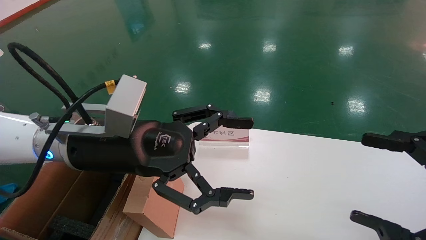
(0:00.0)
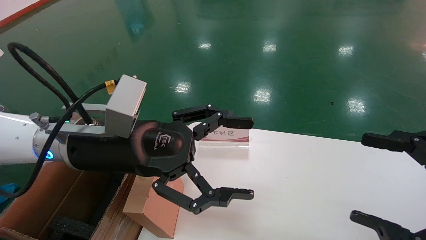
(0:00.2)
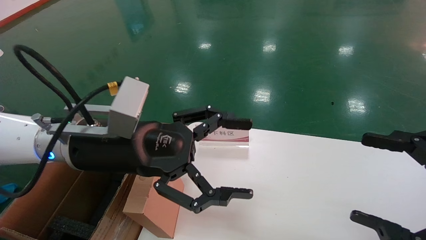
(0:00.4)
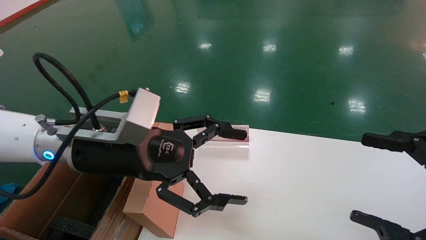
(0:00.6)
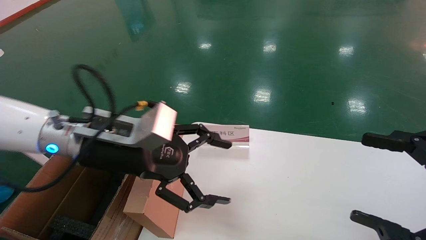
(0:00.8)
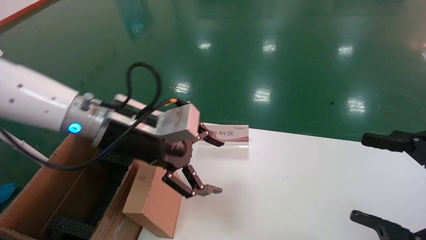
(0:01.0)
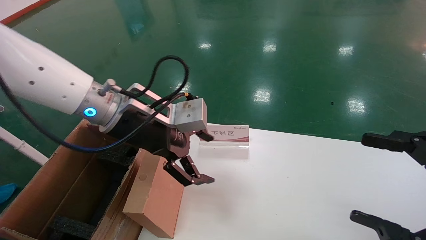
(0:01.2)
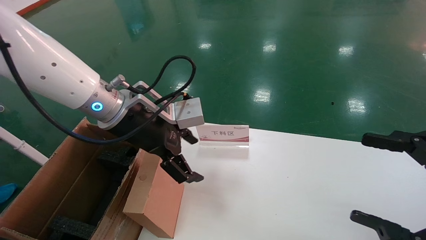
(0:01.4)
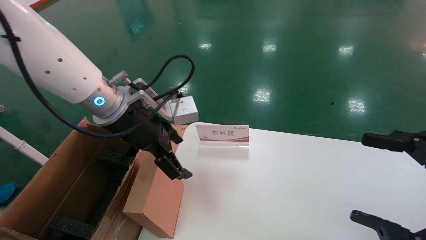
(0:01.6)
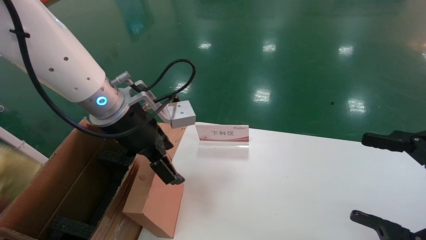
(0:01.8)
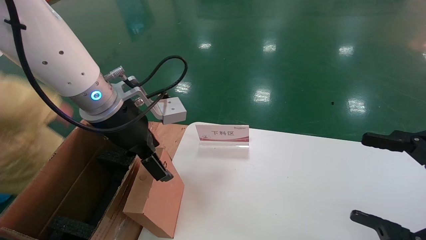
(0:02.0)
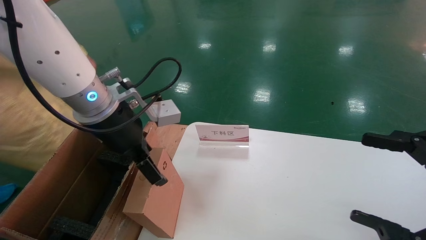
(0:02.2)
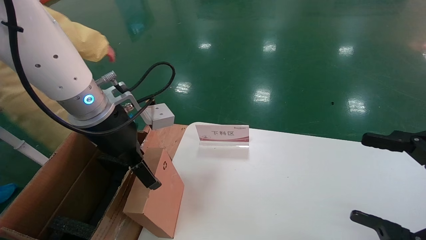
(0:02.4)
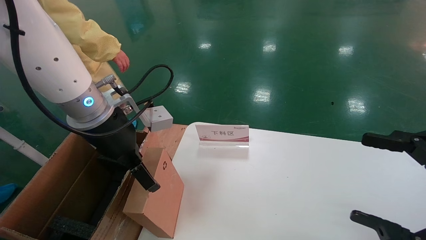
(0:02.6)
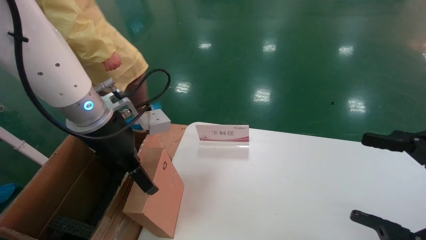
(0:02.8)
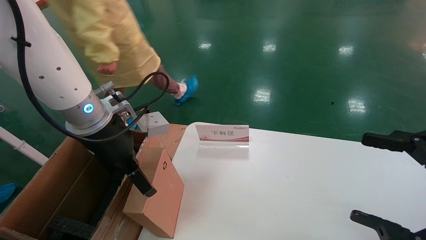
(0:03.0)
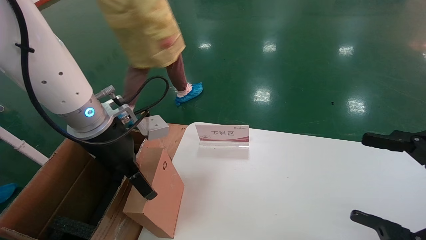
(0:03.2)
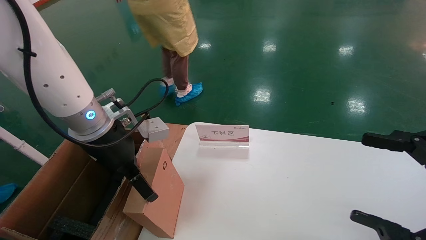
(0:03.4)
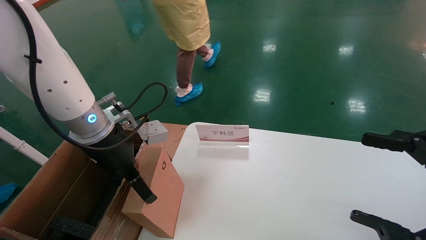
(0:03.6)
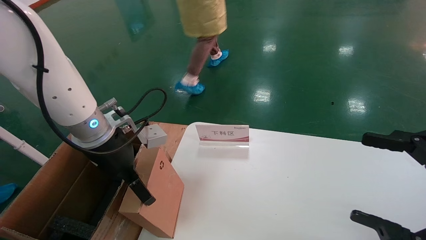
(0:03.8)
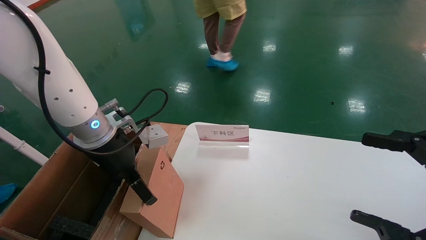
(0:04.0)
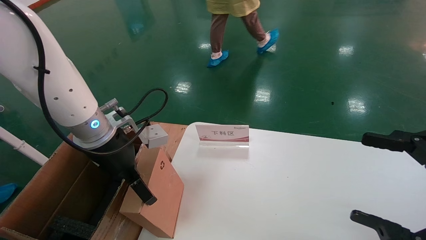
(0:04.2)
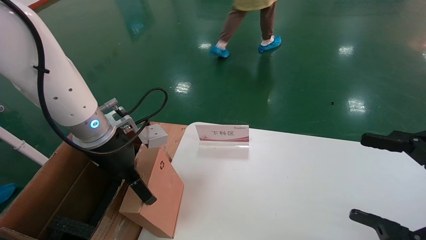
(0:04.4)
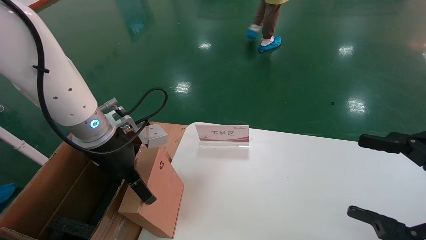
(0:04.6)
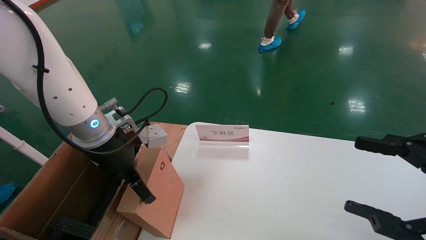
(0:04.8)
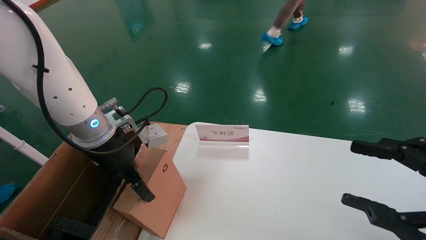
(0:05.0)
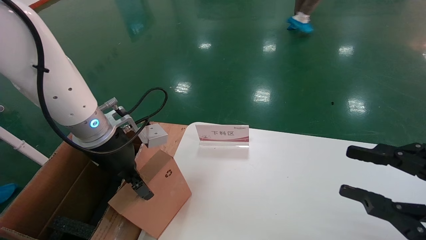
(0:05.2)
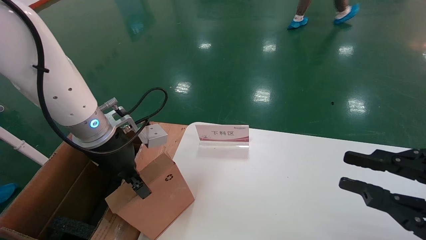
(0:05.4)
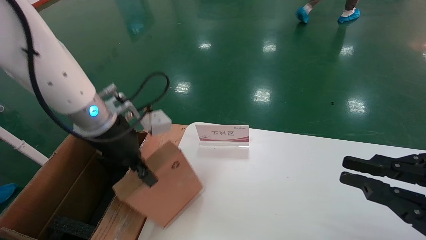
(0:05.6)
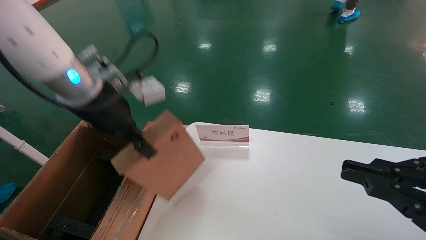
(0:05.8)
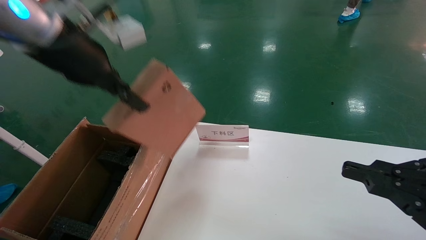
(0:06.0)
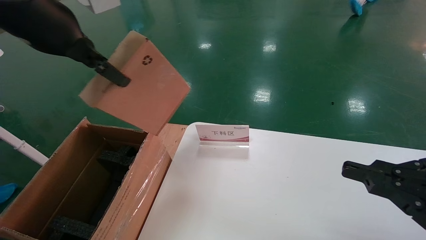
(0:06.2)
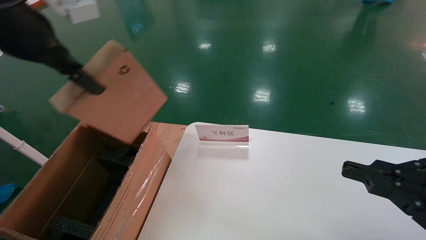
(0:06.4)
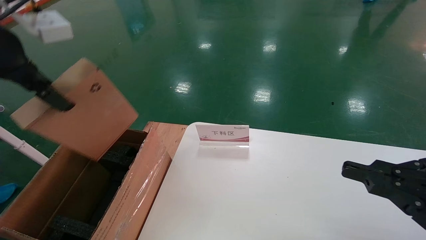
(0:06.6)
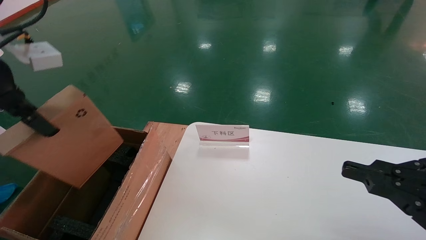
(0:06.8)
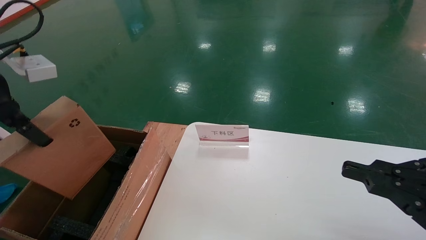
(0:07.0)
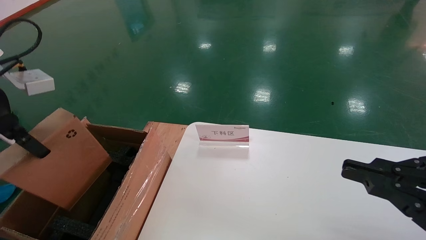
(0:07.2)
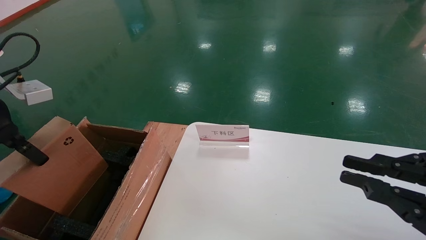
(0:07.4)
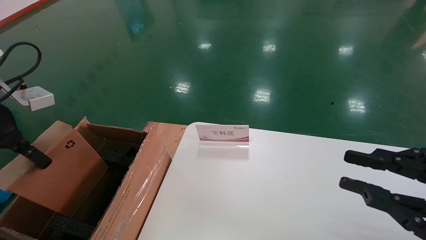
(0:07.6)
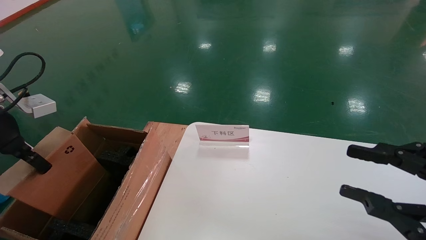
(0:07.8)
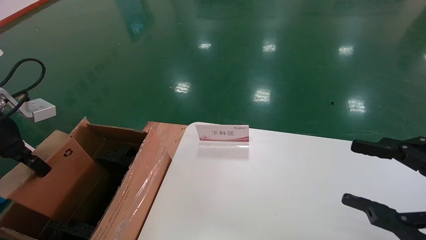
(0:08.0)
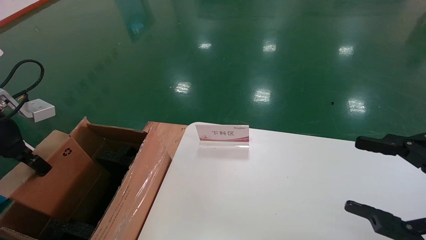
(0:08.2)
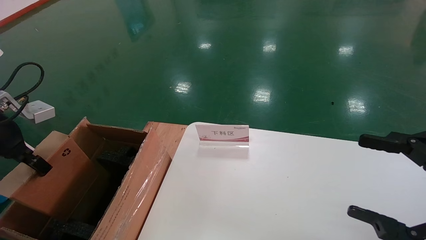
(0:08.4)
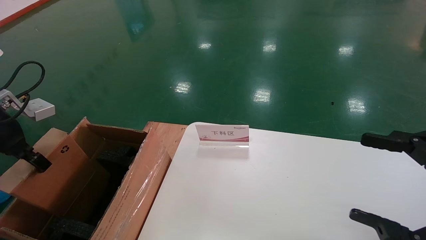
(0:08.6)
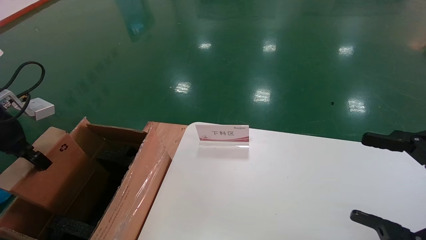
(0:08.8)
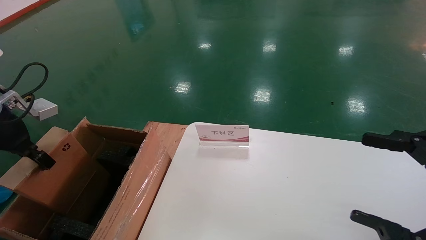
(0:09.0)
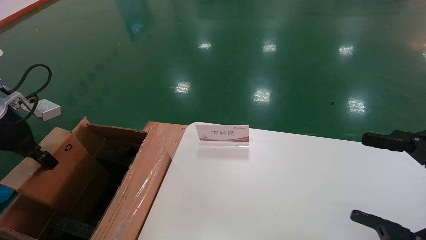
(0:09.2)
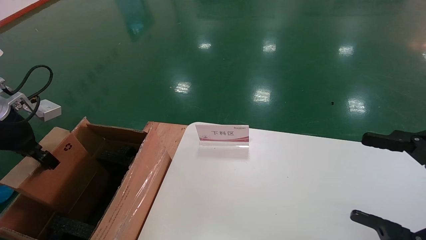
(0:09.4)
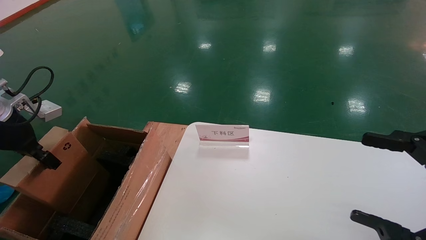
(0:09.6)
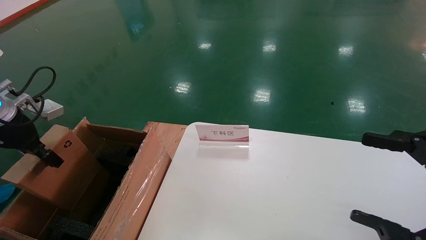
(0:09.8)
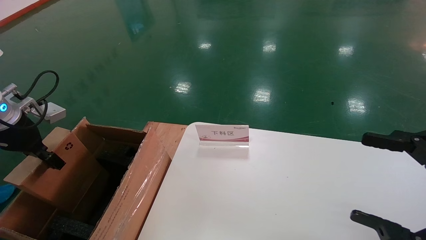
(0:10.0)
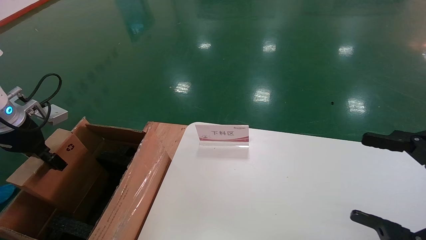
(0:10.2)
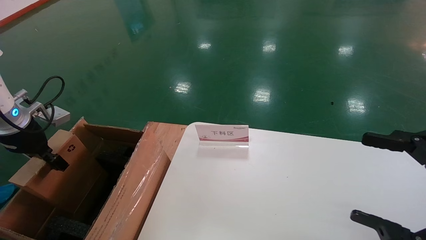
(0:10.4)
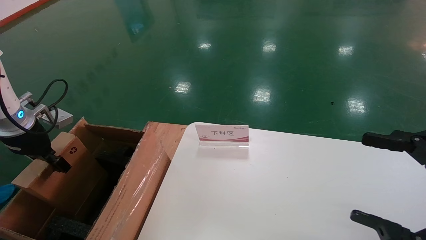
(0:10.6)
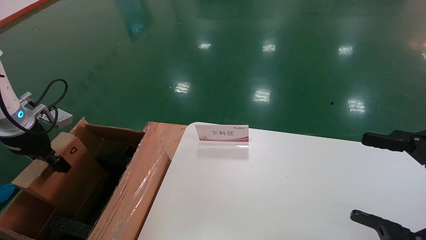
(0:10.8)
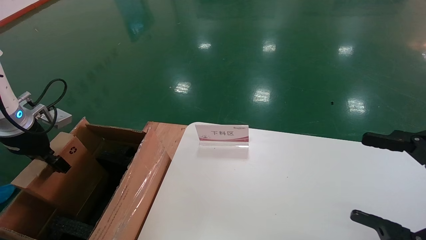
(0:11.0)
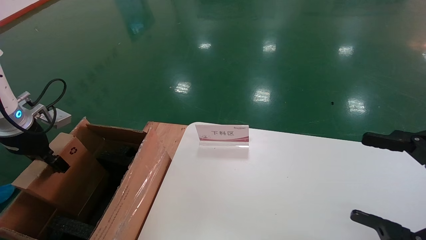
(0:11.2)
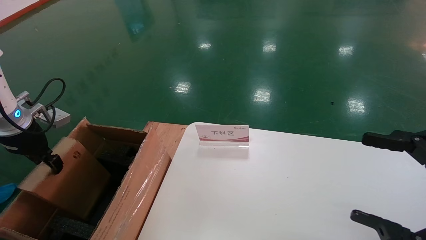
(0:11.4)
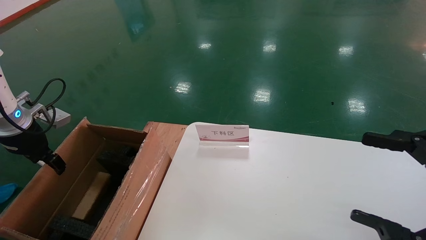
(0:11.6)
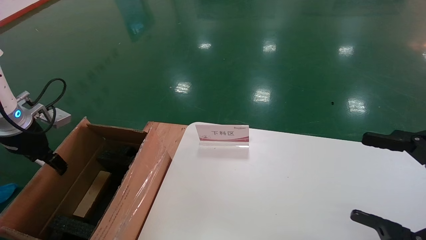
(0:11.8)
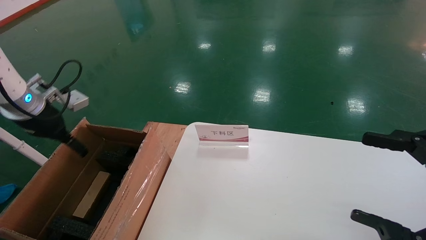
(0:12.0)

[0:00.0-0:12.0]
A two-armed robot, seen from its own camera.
Task of the whole recording: pick up the small cardboard box and load it into the large cardboard box.
Step, 0:01.0 to 0:05.4: Pick up the mouse and power cord box.
Step, 0:05.6 to 0:11.4: Place the mouse and power cord box into the case.
0:00.0 to 0:01.6: The left gripper heads forward, covering approximately 5 cm.
0:03.0 to 0:04.4: The grippers make only small movements.
0:04.4 to 0:06.0: The right gripper closes. Meanwhile the left gripper is displaced upward by roughly 15 cm, and closes up.
0:06.0 to 0:07.6: The left gripper heads to the left and downward, covering about 20 cm.
0:07.6 to 0:09.0: The left gripper moves some 5 cm; the right gripper opens.
0:09.0 to 0:10.4: The left gripper shifts by roughly 5 cm.
0:10.4 to 0:12.0: The left gripper ends up approximately 5 cm from where it was, and opens its fingers.

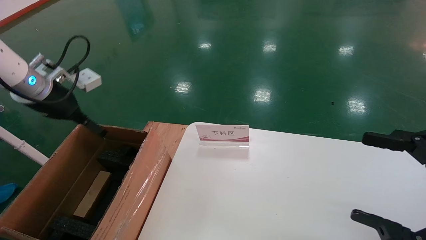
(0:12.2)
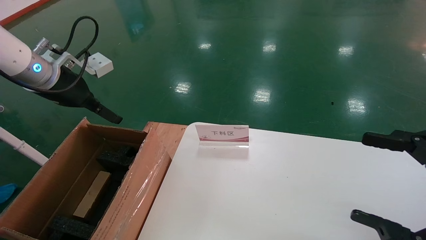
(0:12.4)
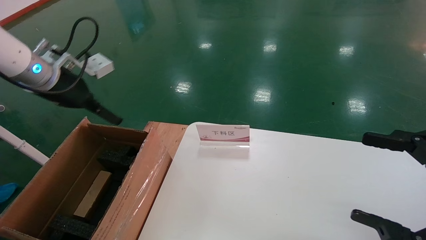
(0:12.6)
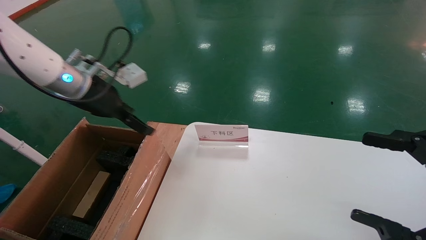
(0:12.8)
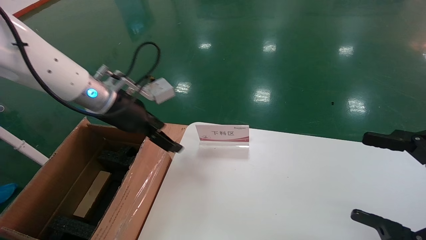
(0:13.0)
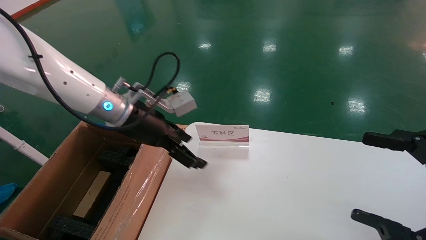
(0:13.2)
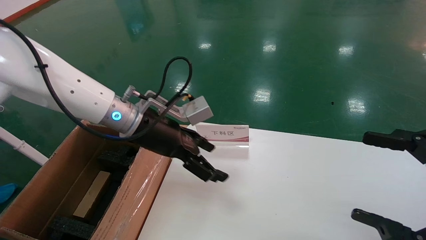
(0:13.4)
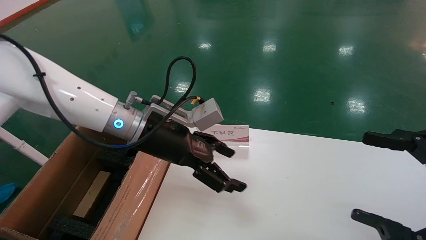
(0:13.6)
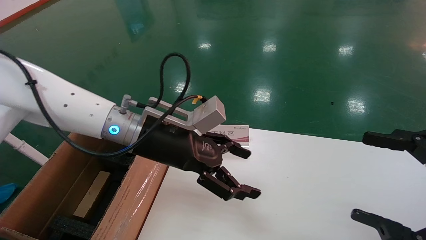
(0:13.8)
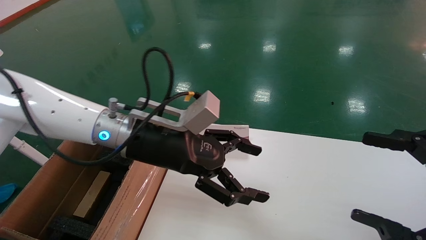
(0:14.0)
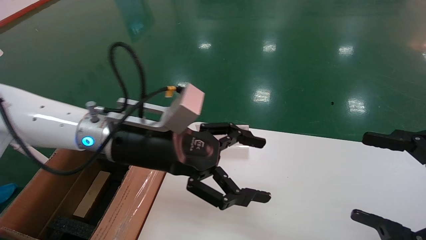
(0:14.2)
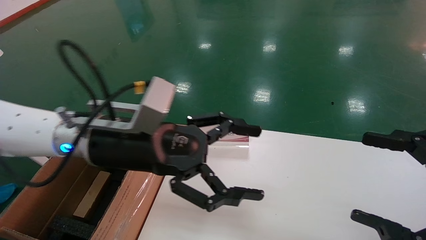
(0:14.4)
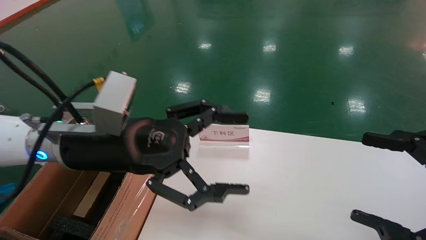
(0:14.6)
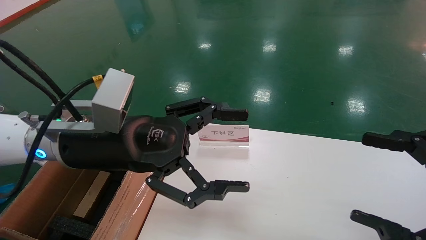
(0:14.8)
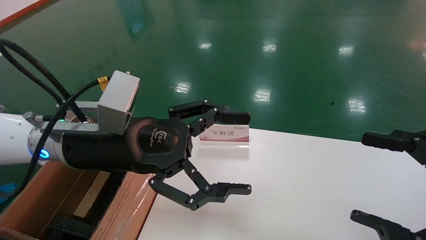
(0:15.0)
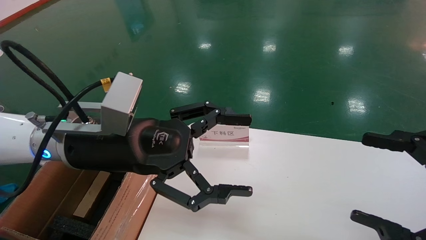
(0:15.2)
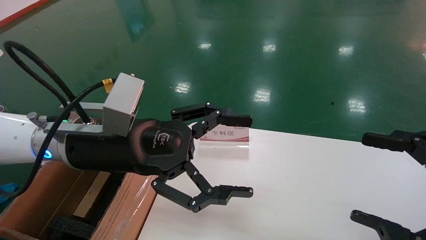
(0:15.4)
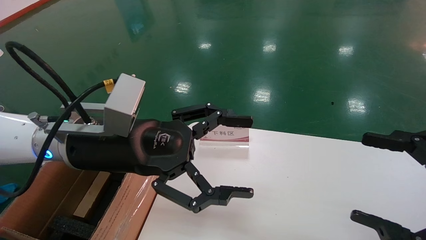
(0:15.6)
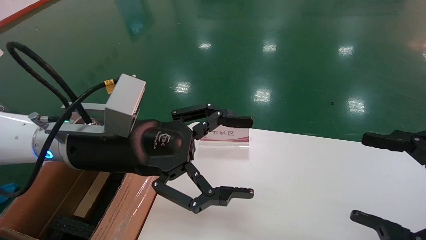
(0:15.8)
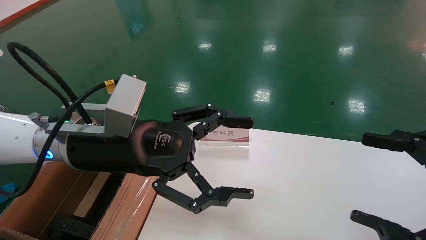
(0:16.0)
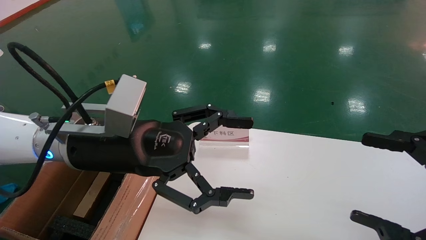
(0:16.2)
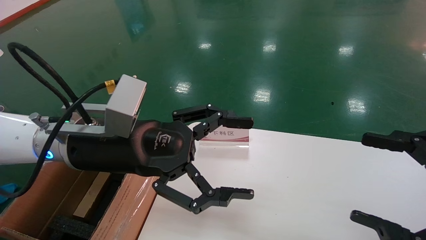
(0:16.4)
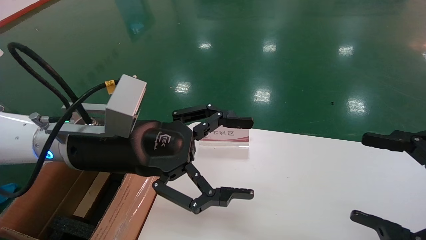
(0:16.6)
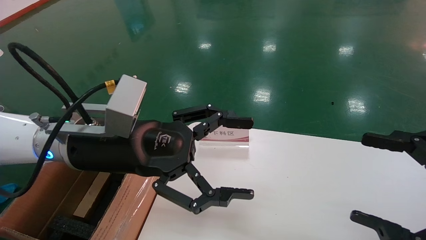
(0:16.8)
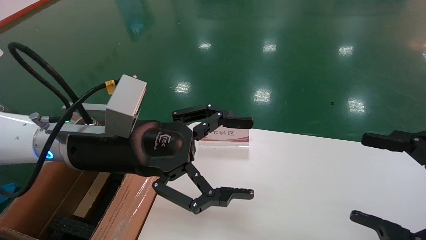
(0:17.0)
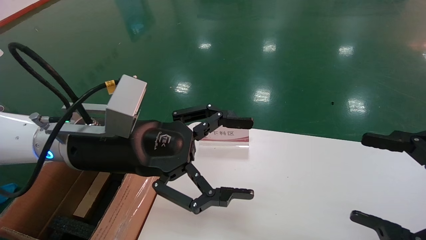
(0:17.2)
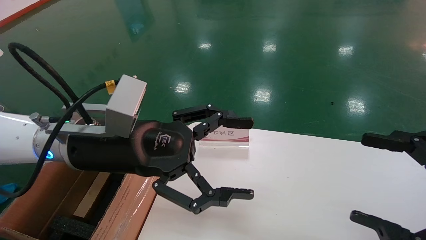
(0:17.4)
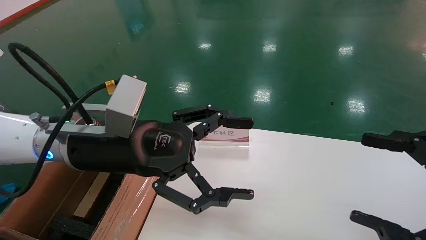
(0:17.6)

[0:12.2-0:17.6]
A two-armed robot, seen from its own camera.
Task of the whole recording: pick up the small cardboard box and load it into the large cardboard box.
0:12.2 to 0:13.6: The left gripper travels to the right by about 25 cm.
0:13.6 to 0:15.0: The left gripper heads backward, covering some 10 cm.
0:15.0 to 0:17.6: Both grippers stay put.
